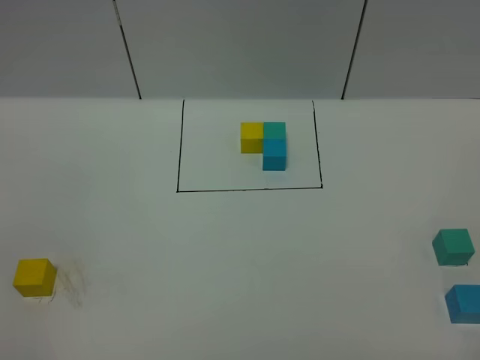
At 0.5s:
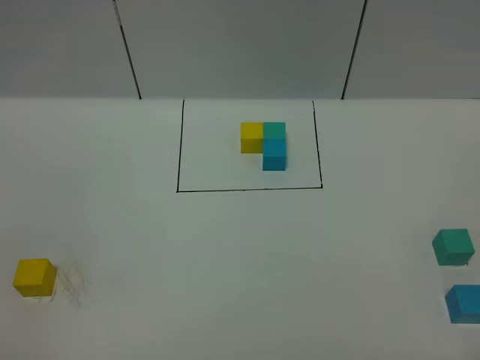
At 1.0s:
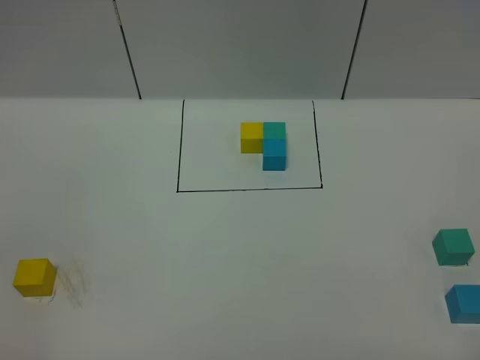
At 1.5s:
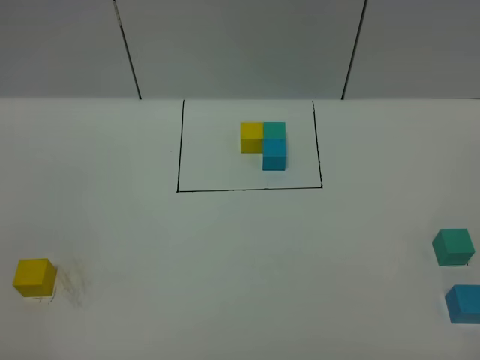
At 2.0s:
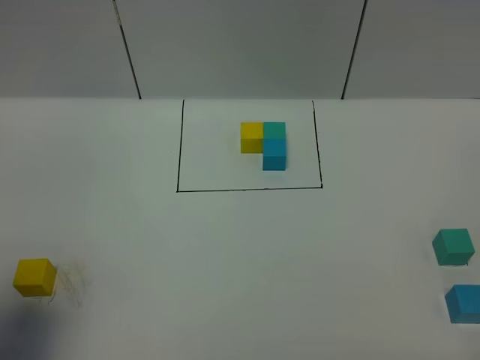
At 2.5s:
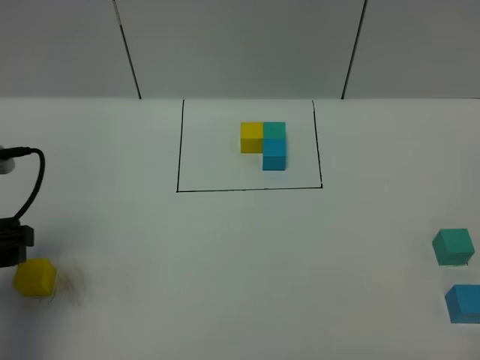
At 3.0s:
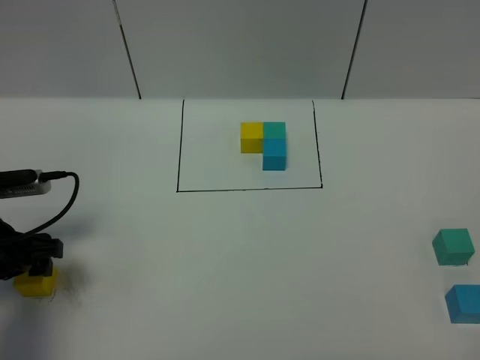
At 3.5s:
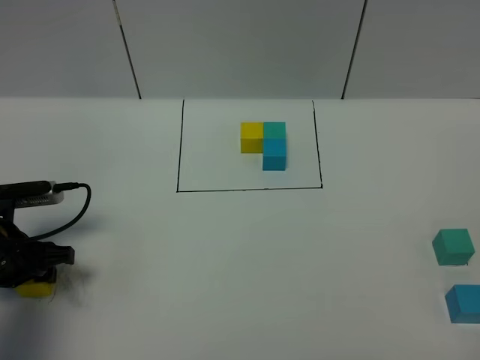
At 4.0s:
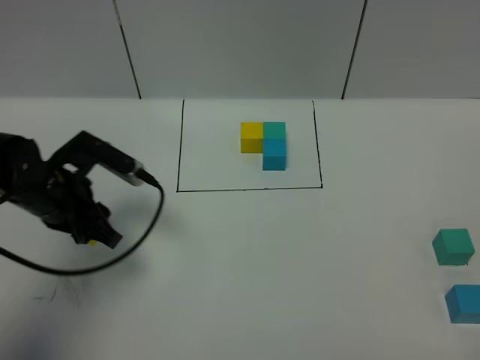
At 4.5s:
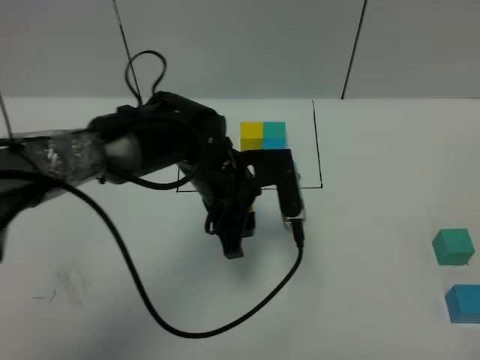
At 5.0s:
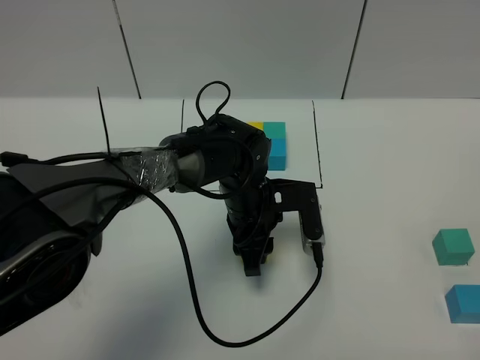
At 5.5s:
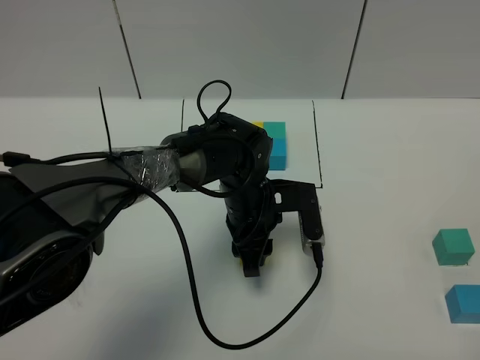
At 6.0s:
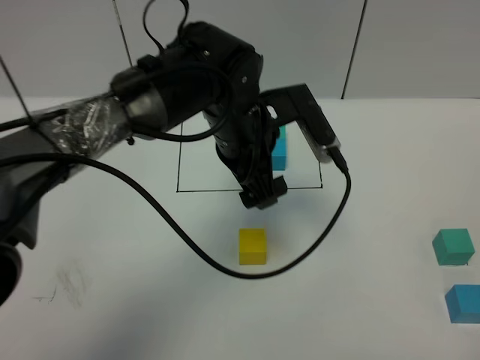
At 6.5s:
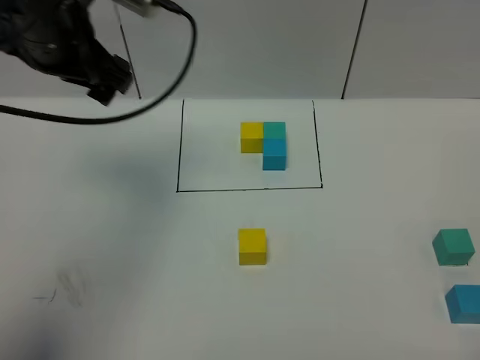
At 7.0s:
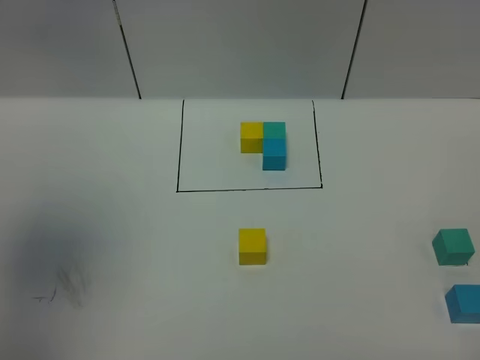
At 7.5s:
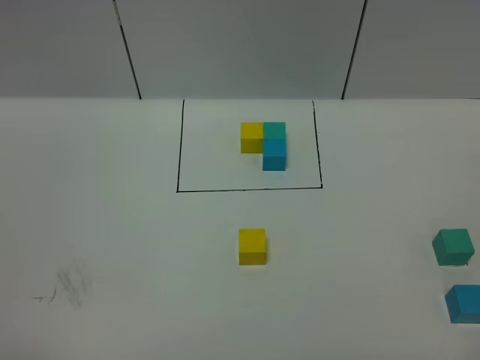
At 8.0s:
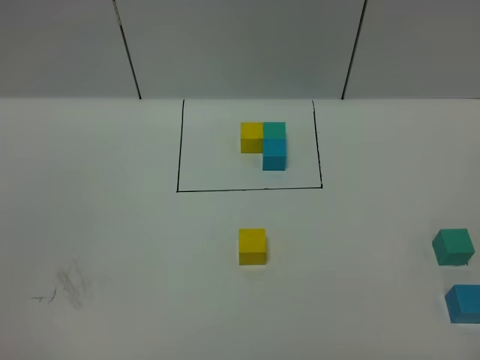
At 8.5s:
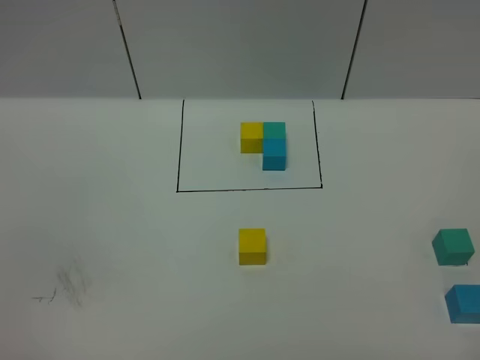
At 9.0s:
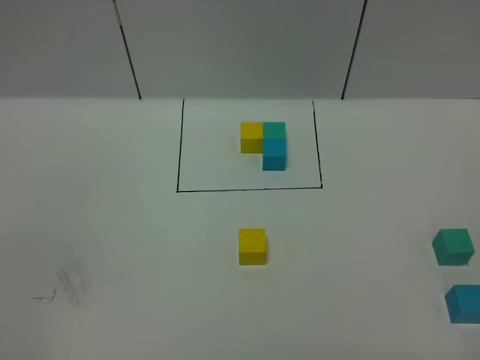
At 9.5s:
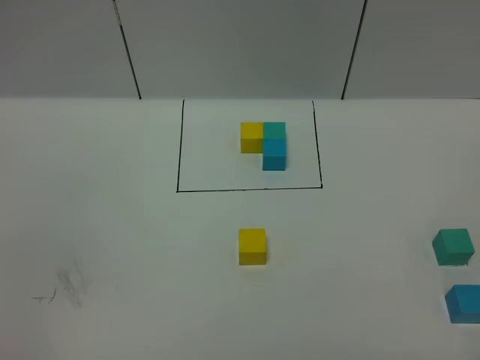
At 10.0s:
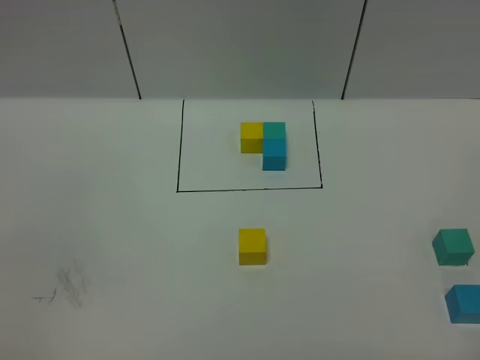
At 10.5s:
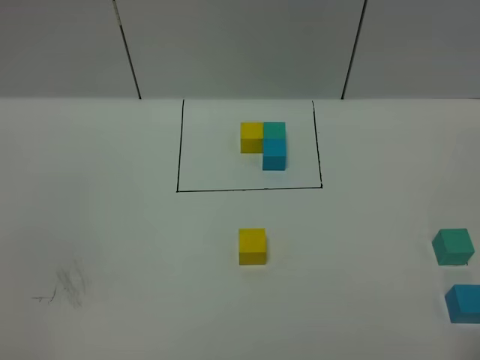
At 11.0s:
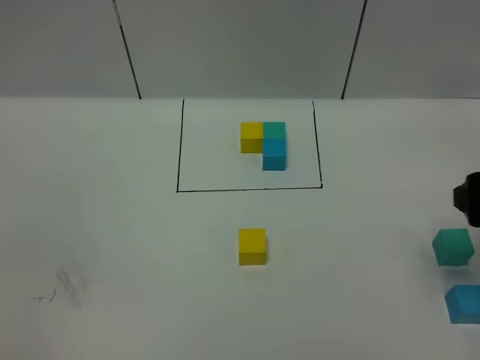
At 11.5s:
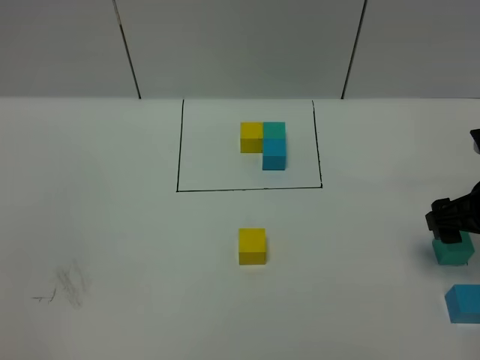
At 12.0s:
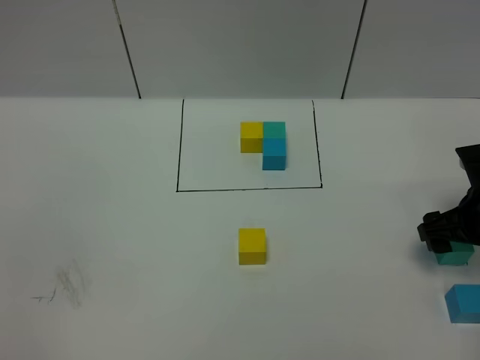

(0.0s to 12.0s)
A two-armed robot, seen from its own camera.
Task of the whole recording: According to the building block template in front, assemble the scattered blocks together.
Step, 2.5s - 5.5s: Put the yellow cube in the center of the table.
0.0s - 2.0s: The left gripper goes about 15 cm forward.
2.0s - 4.0s: The left gripper is displaced forward, downward and to the right by roughly 25 cm, and closes.
4.0s - 6.0s: The left gripper is displaced to the right by approximately 20 cm, and opens up.
6.0s - 8.0s: The left gripper heads backward and to the left, covering some 50 cm.
10.0s - 12.0s: The right gripper goes some 35 cm forward and downward, and opens.

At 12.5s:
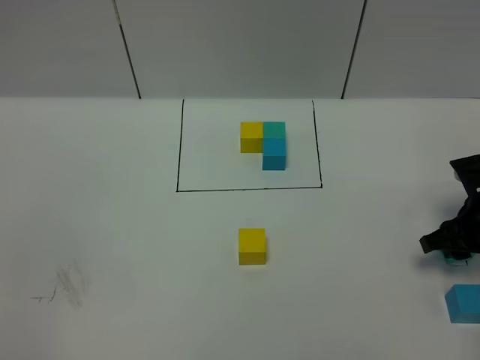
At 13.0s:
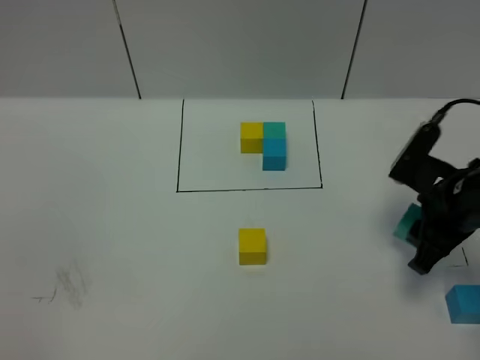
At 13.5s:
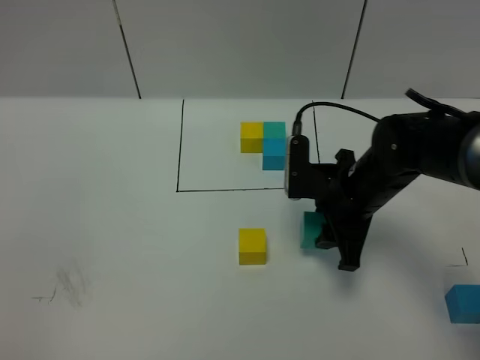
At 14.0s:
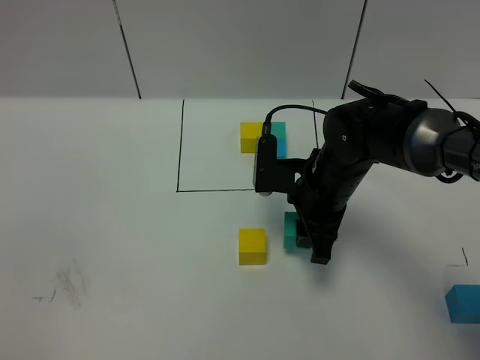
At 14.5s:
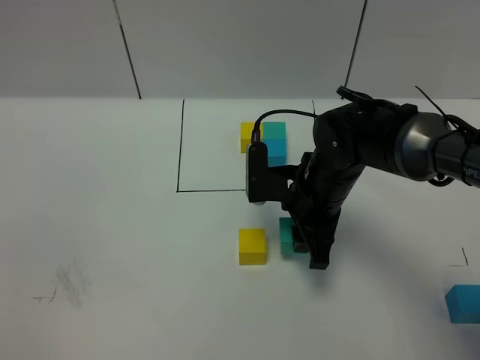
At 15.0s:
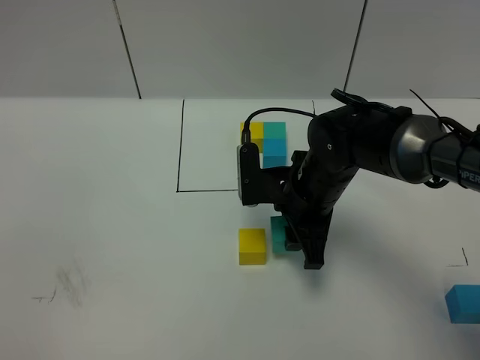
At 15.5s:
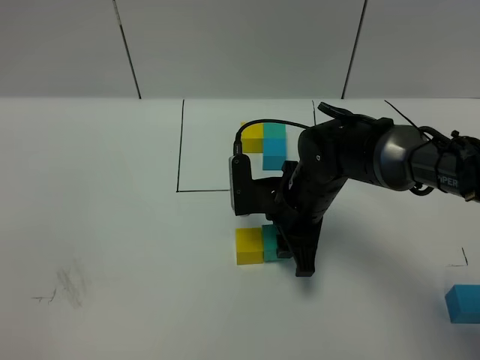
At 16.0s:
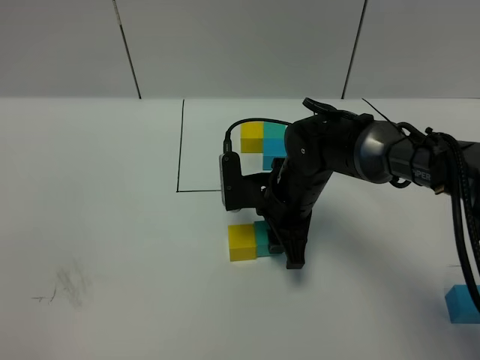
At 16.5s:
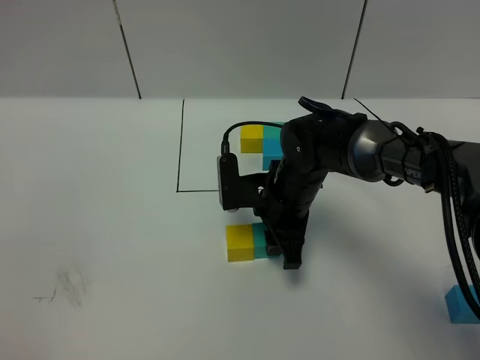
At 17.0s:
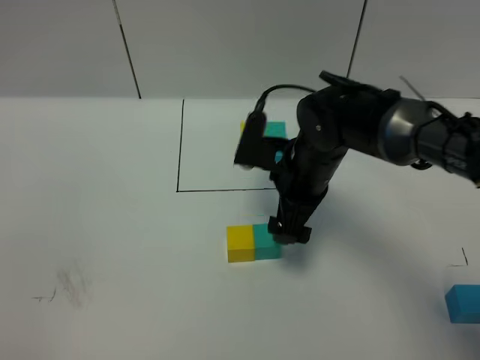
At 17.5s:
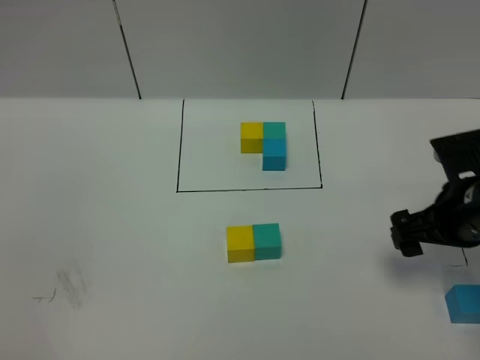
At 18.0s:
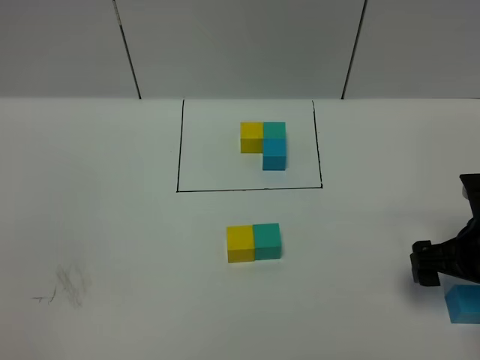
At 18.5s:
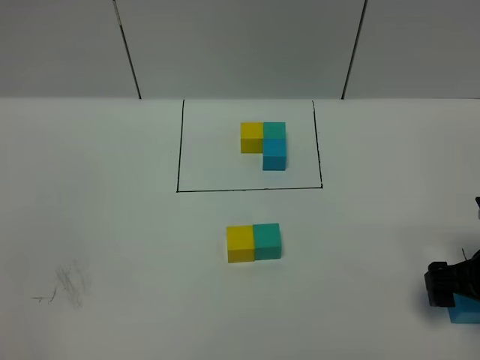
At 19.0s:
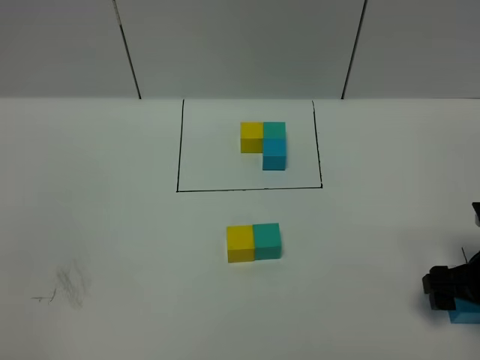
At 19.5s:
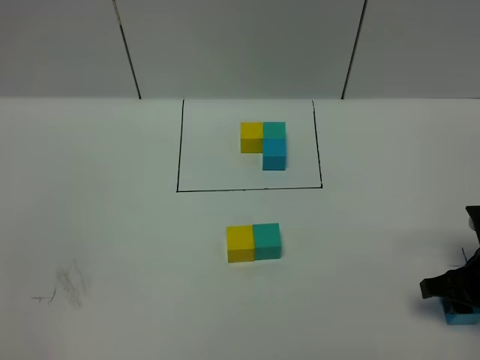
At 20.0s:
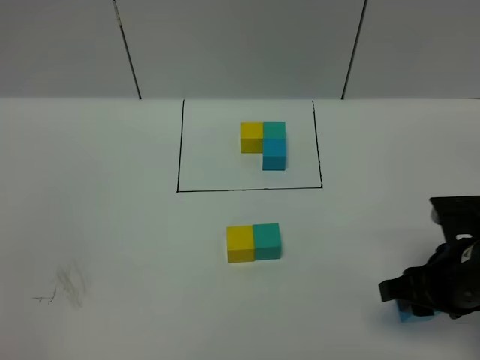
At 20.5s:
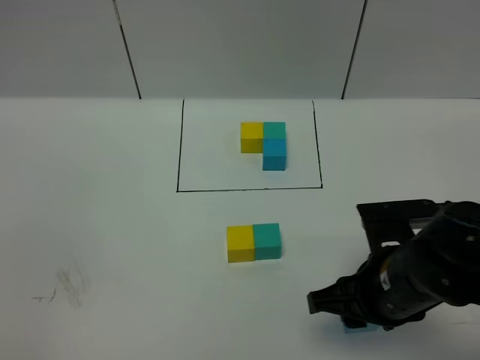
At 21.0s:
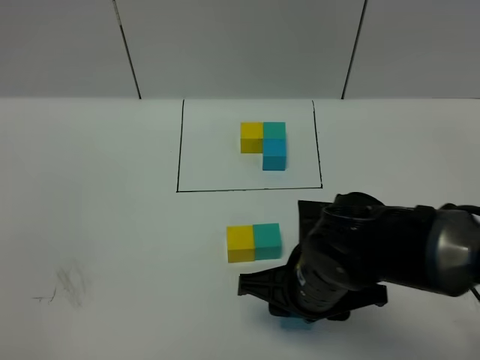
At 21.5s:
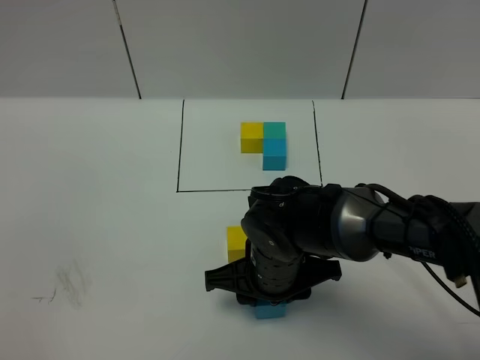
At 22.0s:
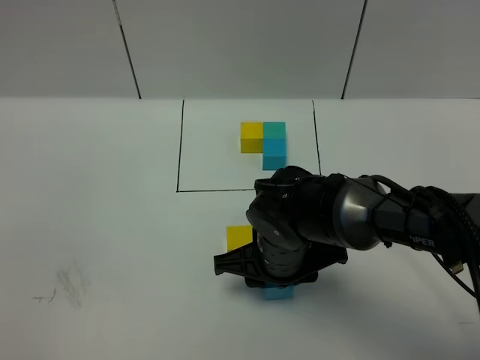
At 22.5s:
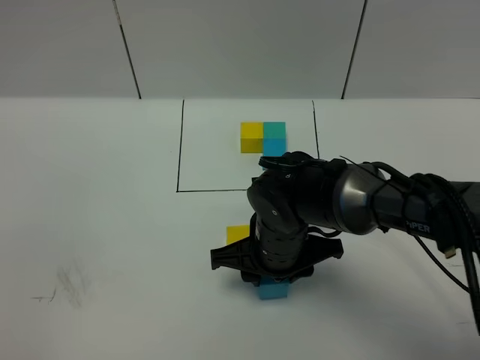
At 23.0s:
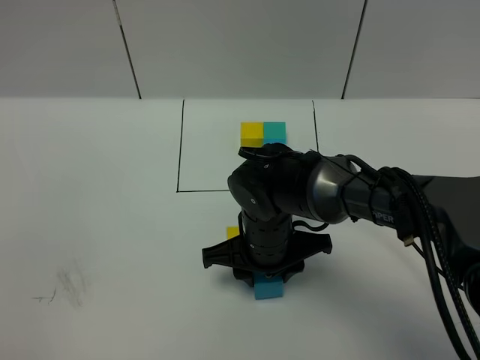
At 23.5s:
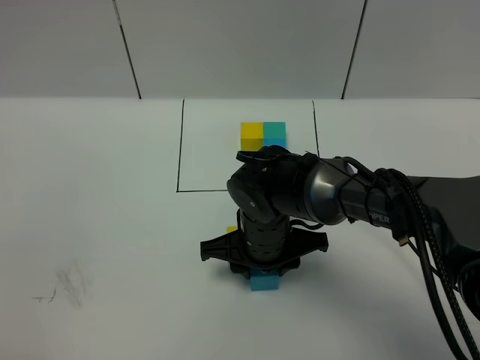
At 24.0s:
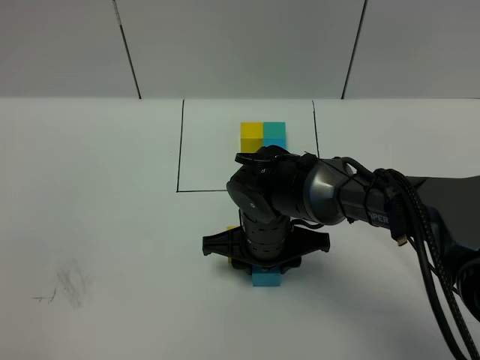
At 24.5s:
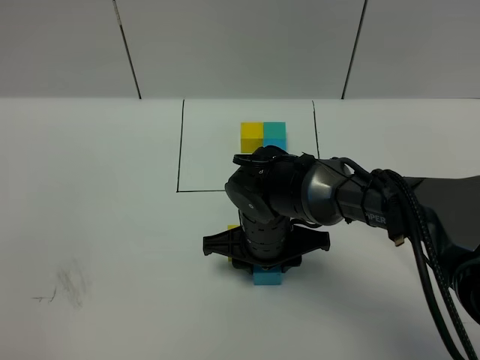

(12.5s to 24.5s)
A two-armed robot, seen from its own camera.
Task of the whole recording: According to the building block template in front, assemble the scattered blocks together.
Step, 12.5s - 16.5s: Put the green cube on the right of the yellow cube.
12.5s - 14.5s: The right gripper is displaced to the left by some 20 cm.
14.5s - 16.5s: The right gripper changes place by some 5 cm.
16.5s - 18.5s: The right gripper shifts about 25 cm to the right and backward, and opens its fingers.
18.5s - 20.5s: The right gripper goes approximately 15 cm to the left, and closes its fingers.
20.5s - 22.5s: The right gripper travels to the left and forward by roughly 15 cm.
22.5s - 24.5s: The grippers move only a little.

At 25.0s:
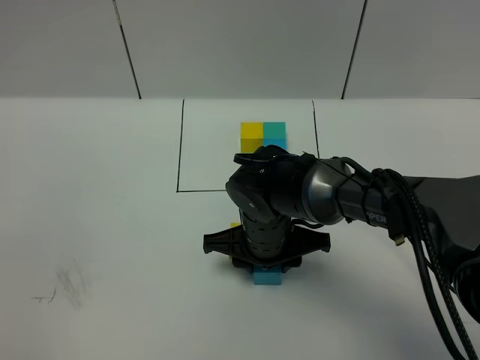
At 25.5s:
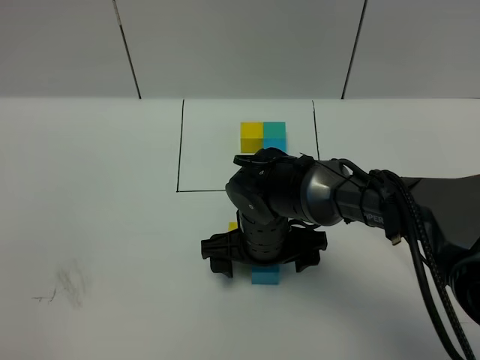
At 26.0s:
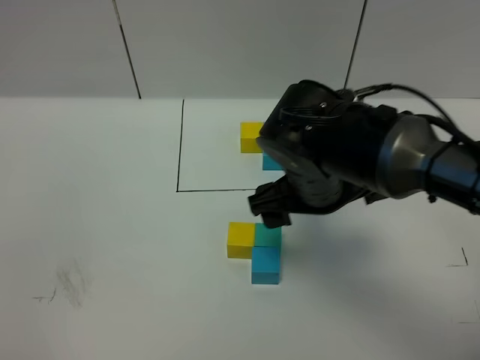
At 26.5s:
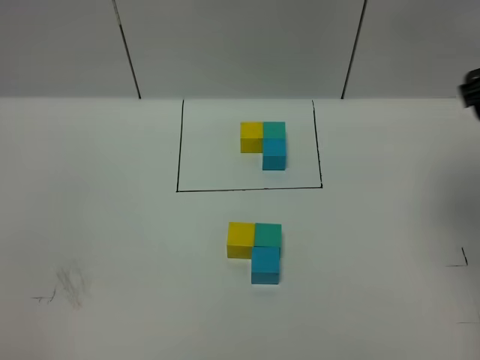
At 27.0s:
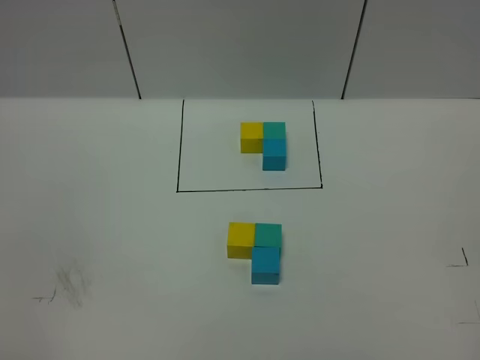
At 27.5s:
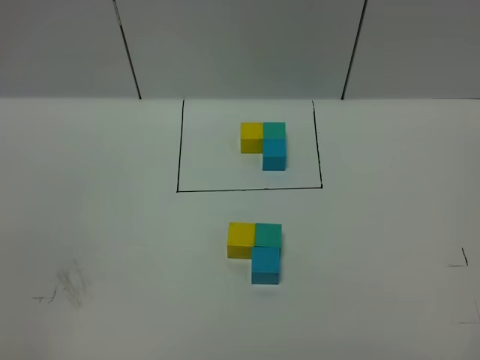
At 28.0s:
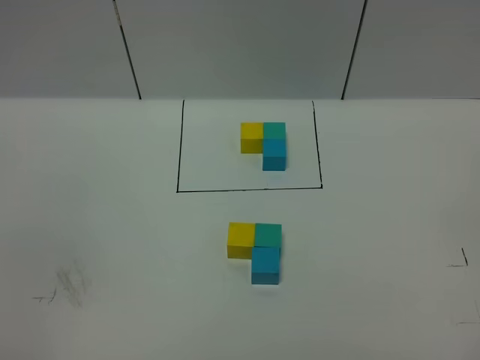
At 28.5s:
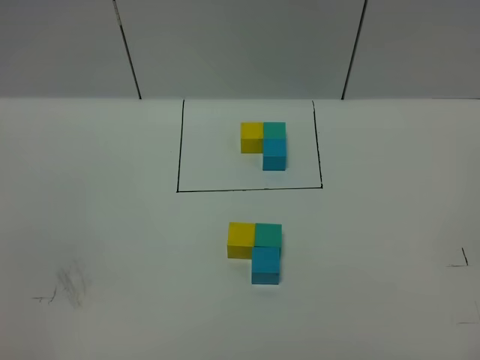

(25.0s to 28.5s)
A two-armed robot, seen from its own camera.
Task of the whole recording: According to the building block template in front, assemble the scattered blocks together.
25.0s - 27.0s: The right gripper is displaced to the right, upward and backward by approximately 50 cm, and opens up.
